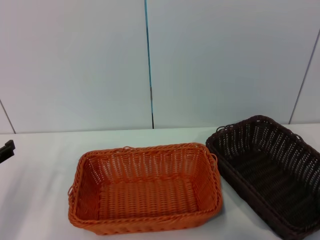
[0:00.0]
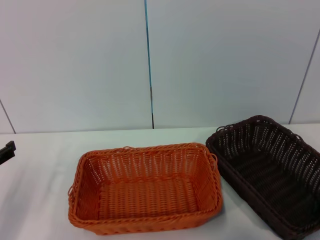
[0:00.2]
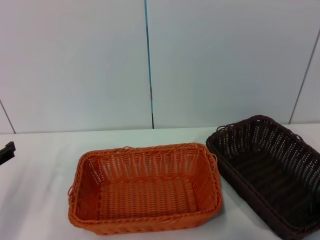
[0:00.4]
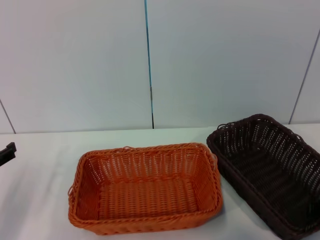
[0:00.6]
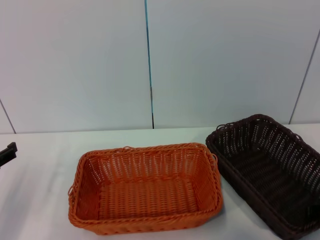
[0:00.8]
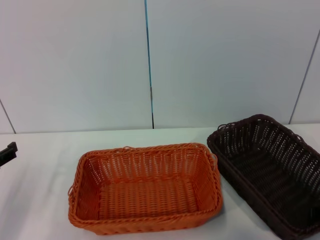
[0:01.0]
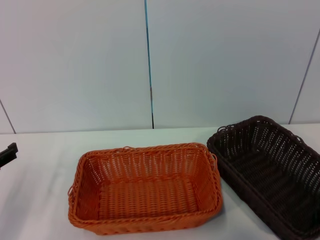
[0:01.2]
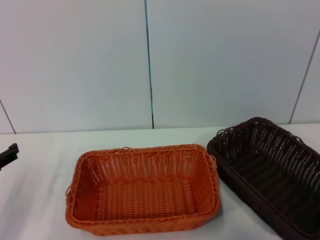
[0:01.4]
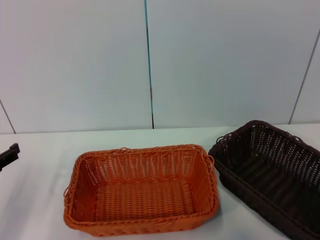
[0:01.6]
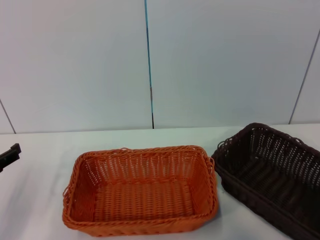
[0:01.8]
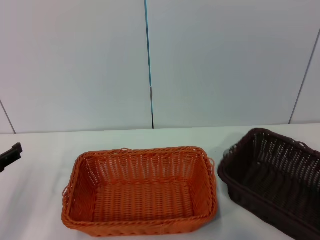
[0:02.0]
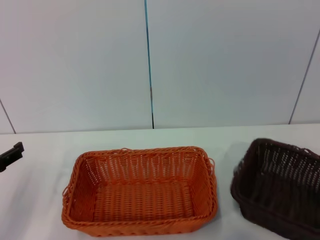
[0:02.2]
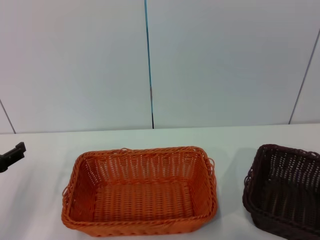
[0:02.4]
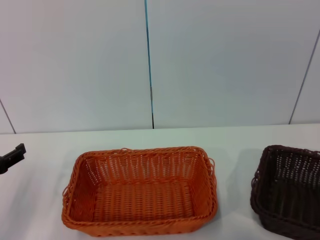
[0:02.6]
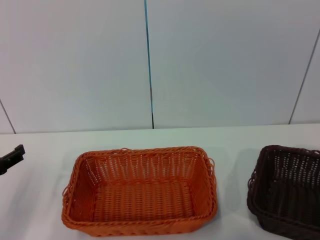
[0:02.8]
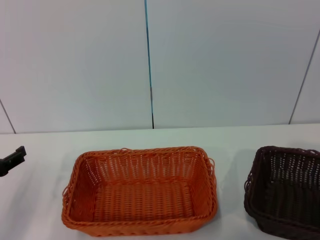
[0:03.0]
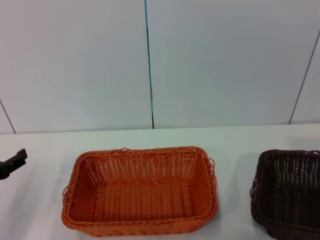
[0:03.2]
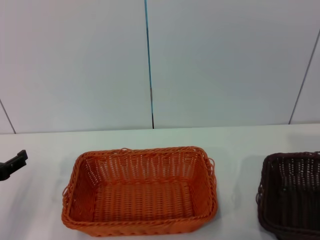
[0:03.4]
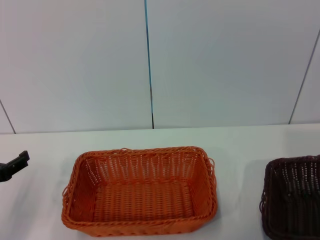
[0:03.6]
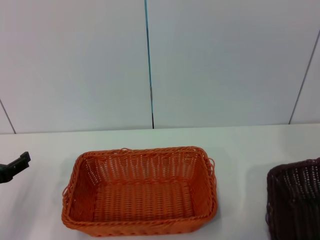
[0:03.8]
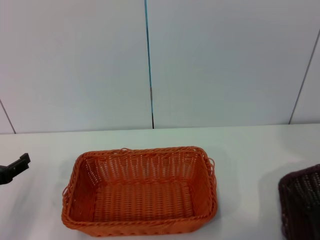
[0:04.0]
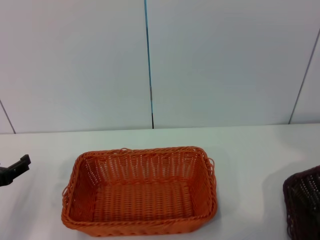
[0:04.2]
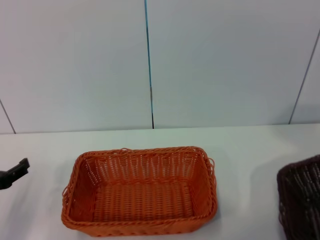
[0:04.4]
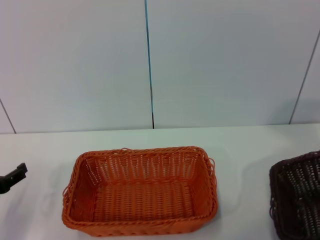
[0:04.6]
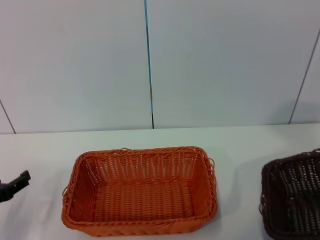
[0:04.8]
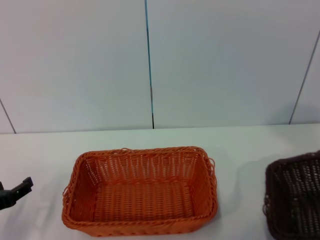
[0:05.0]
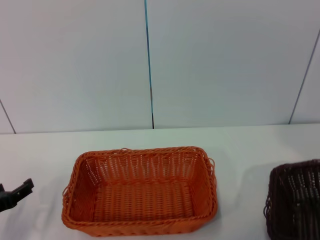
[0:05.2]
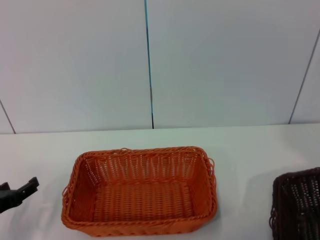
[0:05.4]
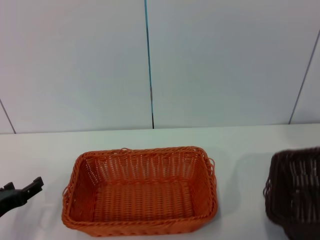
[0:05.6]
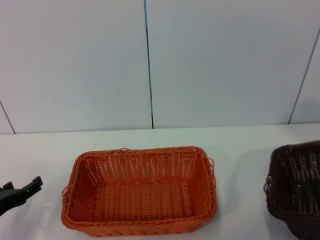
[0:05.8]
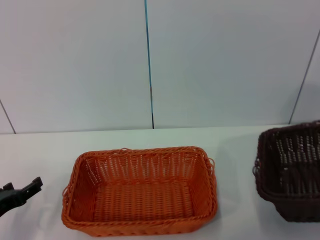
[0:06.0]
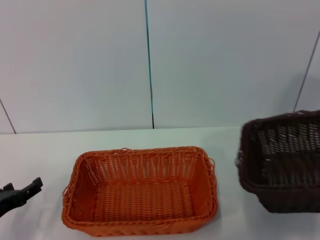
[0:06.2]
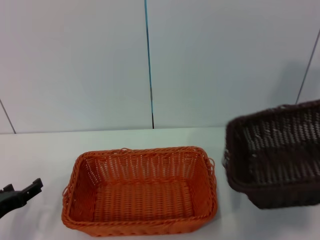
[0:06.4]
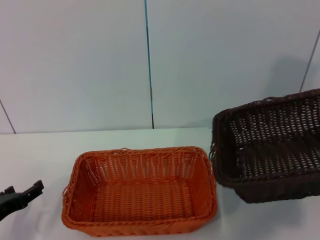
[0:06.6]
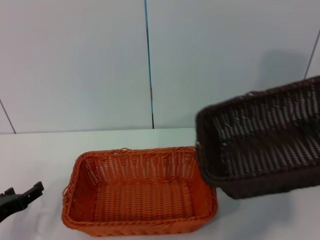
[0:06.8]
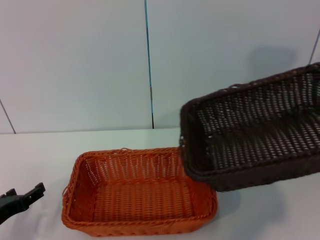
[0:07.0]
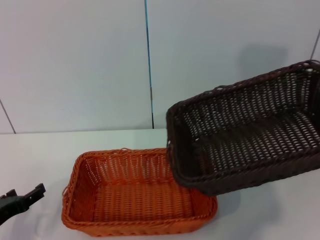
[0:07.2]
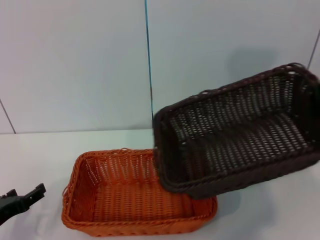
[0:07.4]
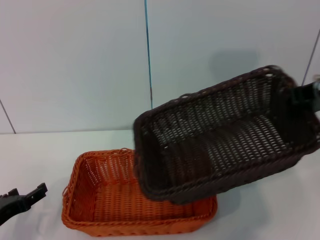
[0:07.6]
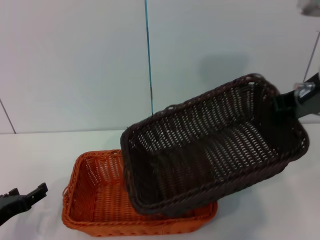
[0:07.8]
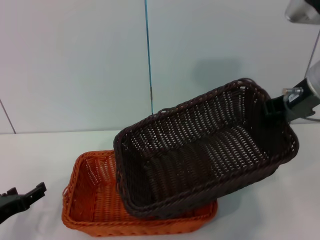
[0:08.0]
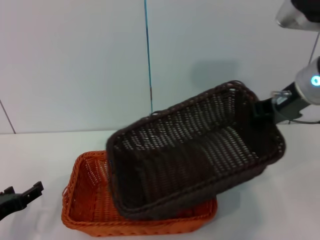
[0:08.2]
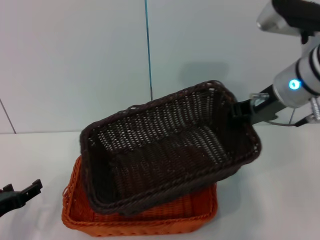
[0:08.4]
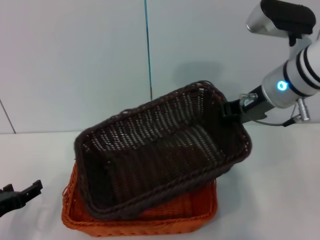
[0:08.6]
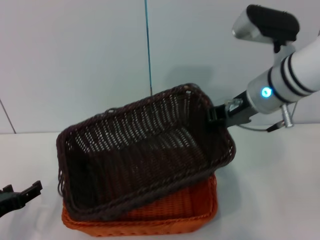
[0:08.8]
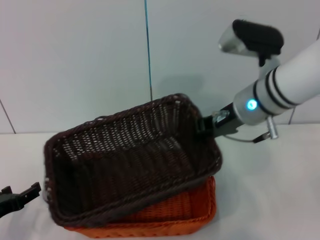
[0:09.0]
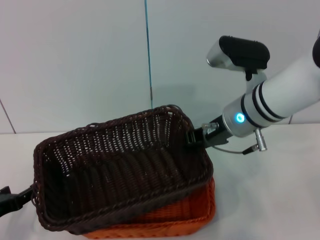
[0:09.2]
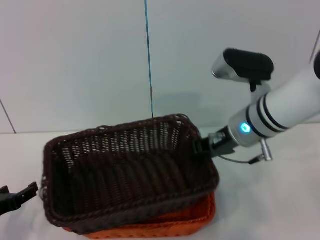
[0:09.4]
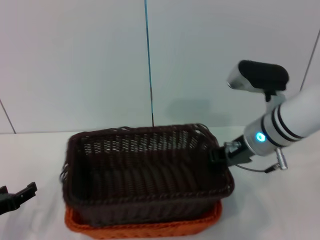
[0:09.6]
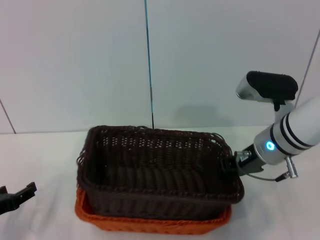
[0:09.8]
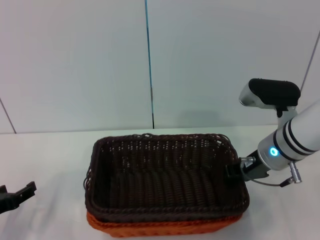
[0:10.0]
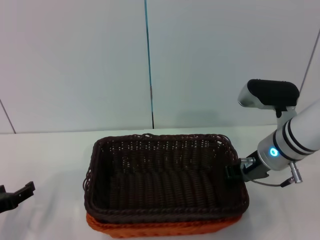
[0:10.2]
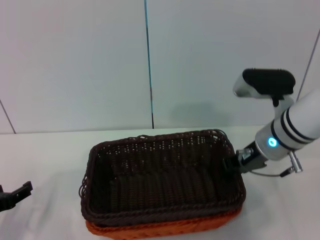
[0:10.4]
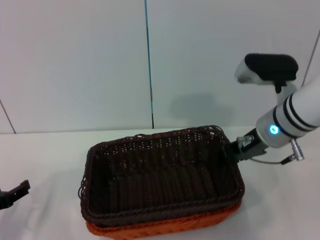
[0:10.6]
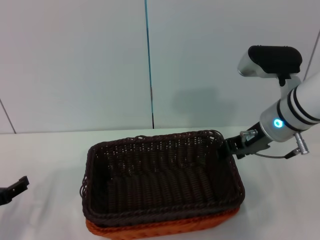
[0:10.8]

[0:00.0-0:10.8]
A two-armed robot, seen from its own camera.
Step, 0:00.0 to 0:03.6: Pick up the dark basket with the right gripper.
Step, 0:03.8 to 0:10.6: Place the dark basket on the light basket with the right gripper.
0:00.0 to 0:01.6: There are only small adjustments of the grippers.
0:01.6 to 0:03.0: The right gripper goes approximately 5 cm to the right, and closes its fingers.
0:03.0 to 0:04.6: The right gripper goes roughly 15 cm upward.
0:04.6 to 0:06.2: The grippers stay close to where they were, moving slightly.
0:06.2 to 0:07.8: The right gripper heads to the left, covering about 15 cm.
0:07.8 to 0:09.2: The right gripper is displaced to the left and downward by approximately 15 cm.
0:09.2 to 0:10.8: The right gripper goes some 5 cm to the right, and opens.

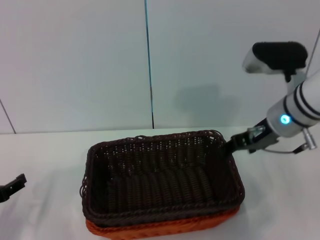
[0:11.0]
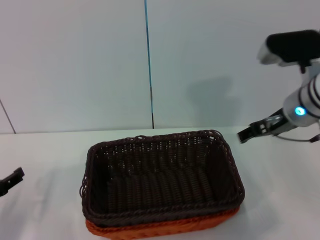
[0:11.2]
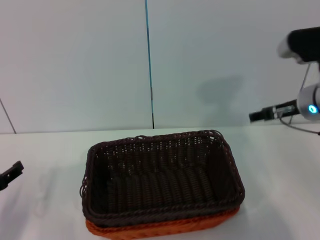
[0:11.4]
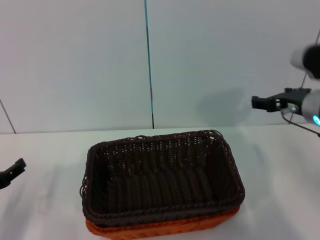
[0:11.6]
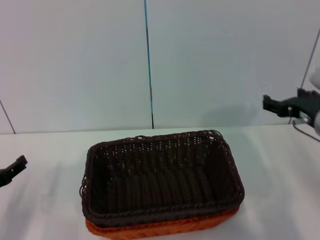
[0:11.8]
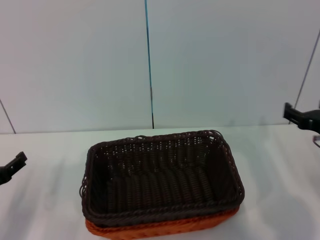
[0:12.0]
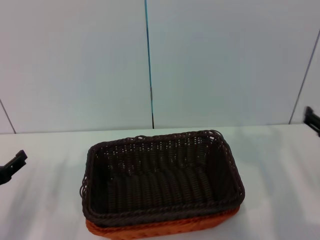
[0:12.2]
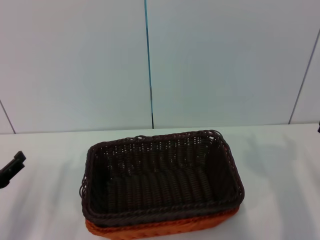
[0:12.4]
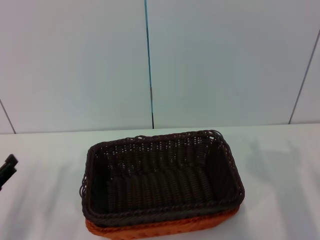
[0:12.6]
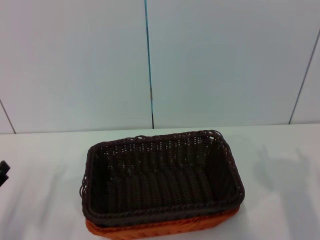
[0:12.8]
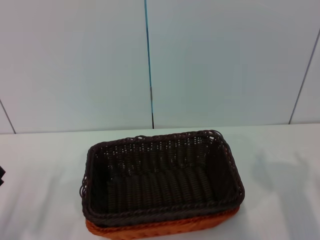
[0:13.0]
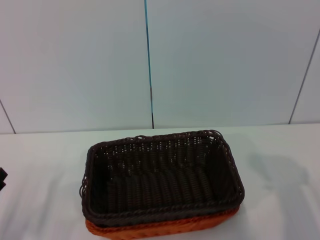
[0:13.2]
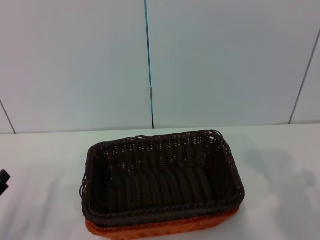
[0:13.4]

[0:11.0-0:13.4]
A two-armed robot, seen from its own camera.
0:11.0 to 0:12.2: The right gripper goes about 15 cm to the right, backward and downward, and opens.
0:12.2 to 0:13.4: The left gripper goes approximately 5 cm backward.
